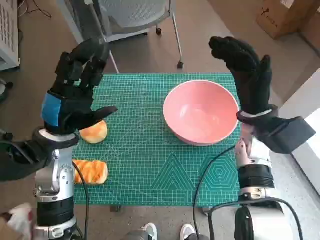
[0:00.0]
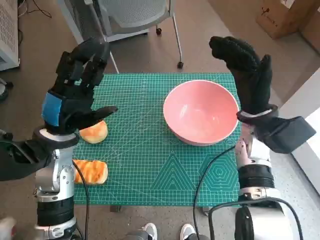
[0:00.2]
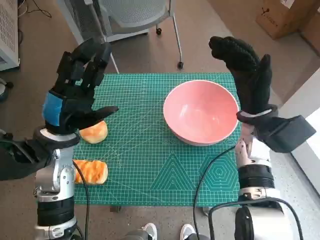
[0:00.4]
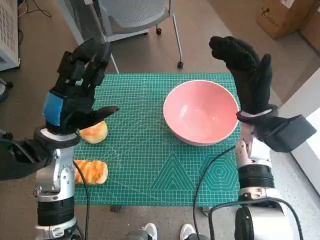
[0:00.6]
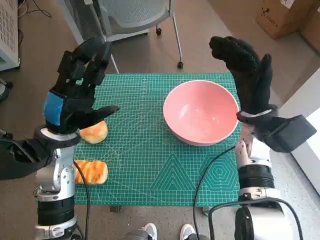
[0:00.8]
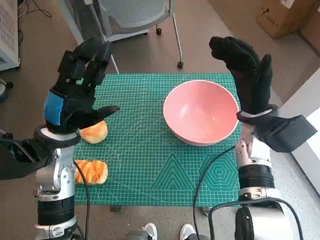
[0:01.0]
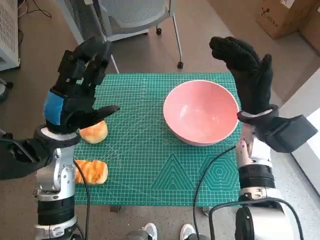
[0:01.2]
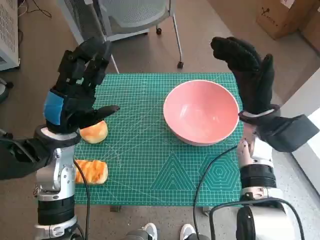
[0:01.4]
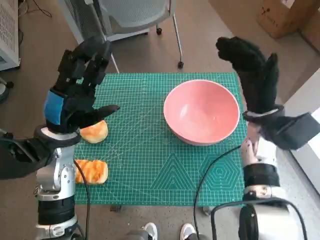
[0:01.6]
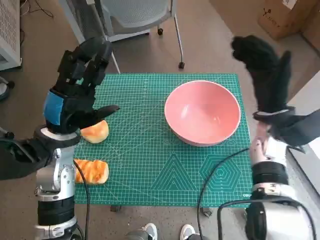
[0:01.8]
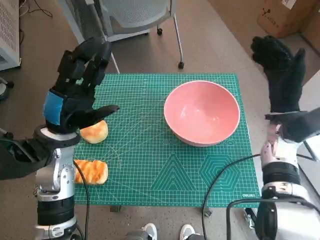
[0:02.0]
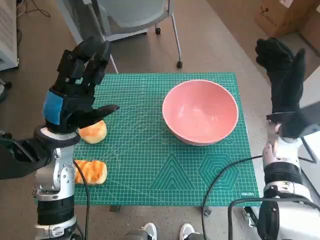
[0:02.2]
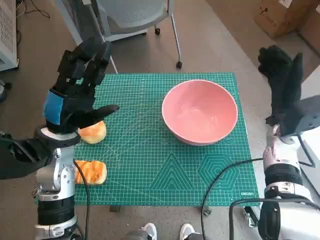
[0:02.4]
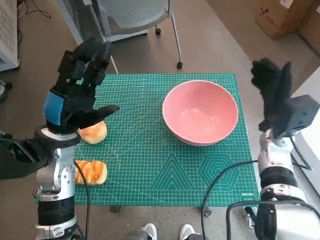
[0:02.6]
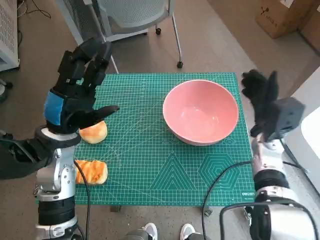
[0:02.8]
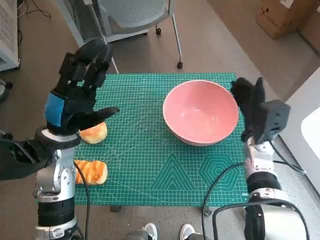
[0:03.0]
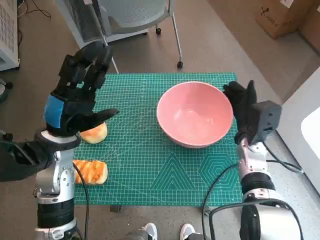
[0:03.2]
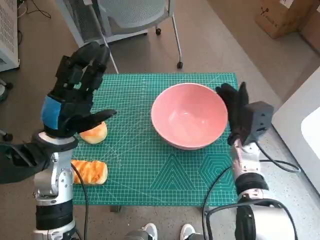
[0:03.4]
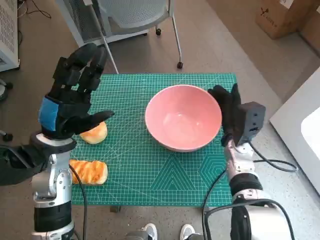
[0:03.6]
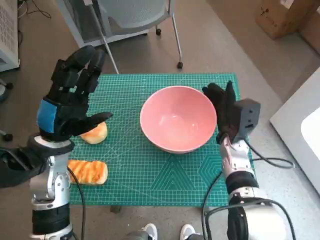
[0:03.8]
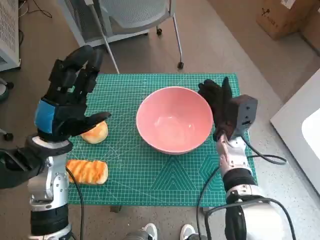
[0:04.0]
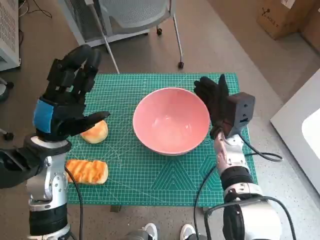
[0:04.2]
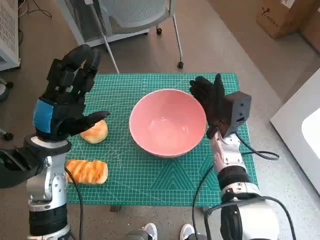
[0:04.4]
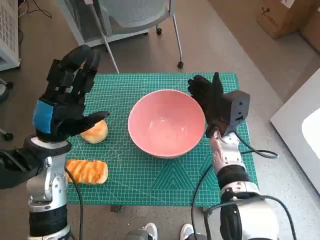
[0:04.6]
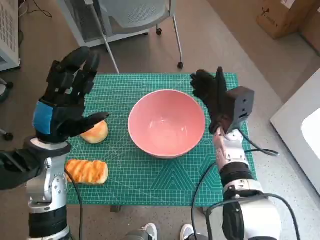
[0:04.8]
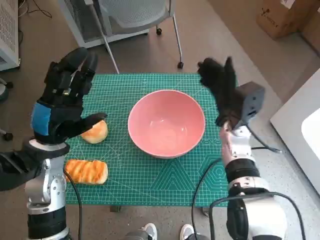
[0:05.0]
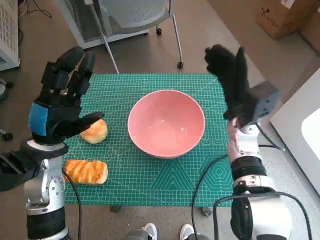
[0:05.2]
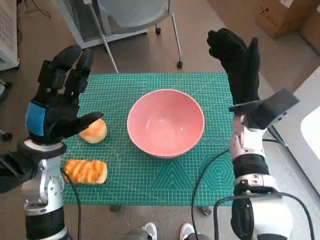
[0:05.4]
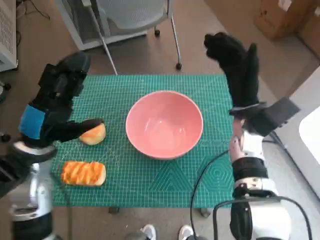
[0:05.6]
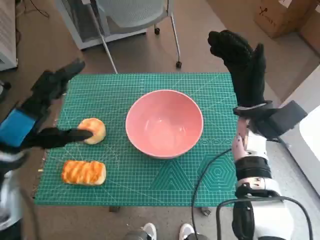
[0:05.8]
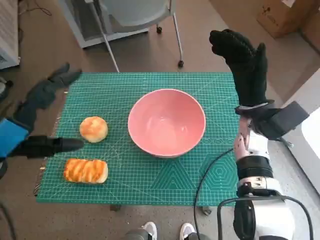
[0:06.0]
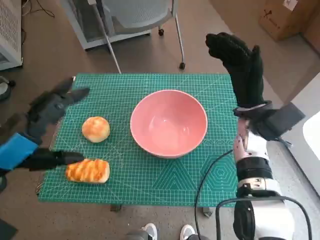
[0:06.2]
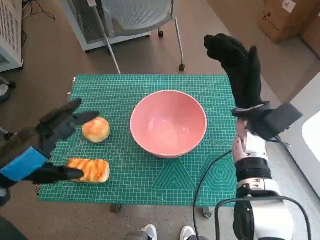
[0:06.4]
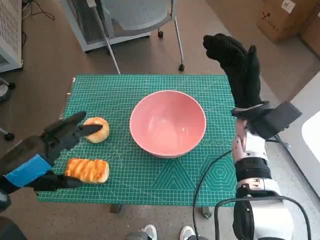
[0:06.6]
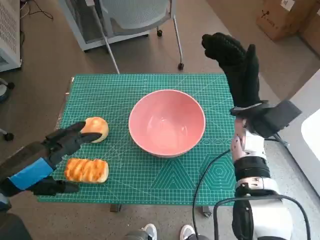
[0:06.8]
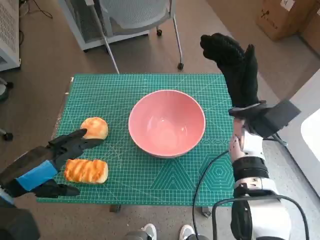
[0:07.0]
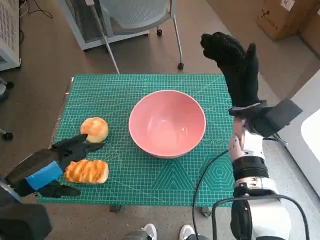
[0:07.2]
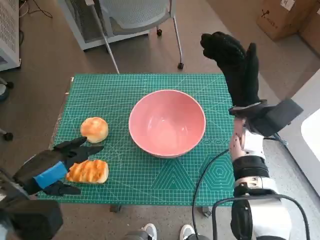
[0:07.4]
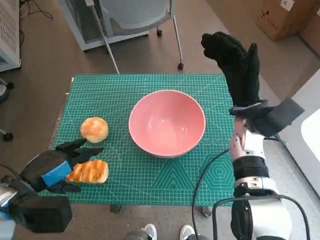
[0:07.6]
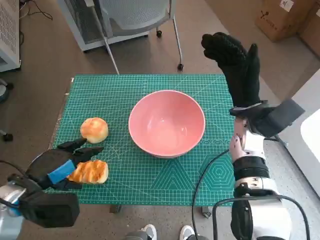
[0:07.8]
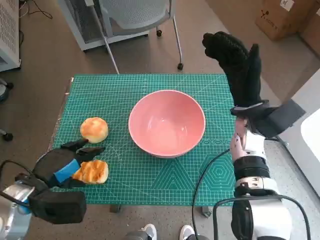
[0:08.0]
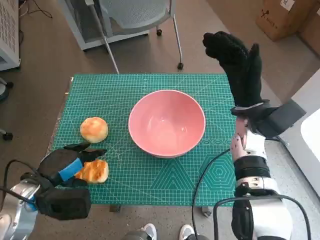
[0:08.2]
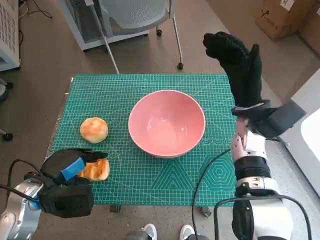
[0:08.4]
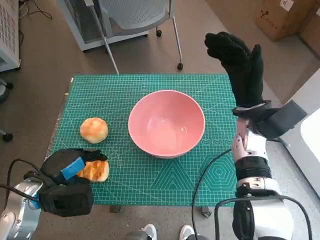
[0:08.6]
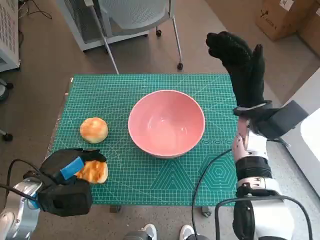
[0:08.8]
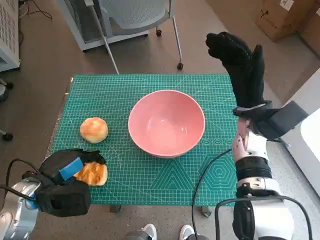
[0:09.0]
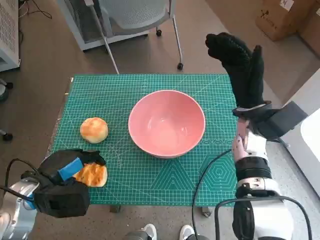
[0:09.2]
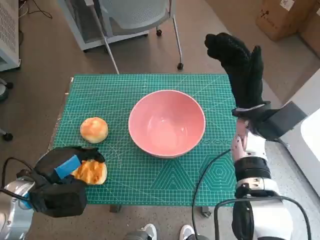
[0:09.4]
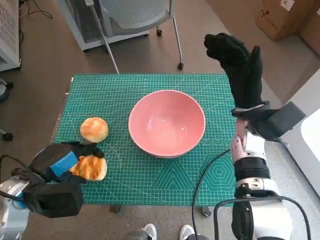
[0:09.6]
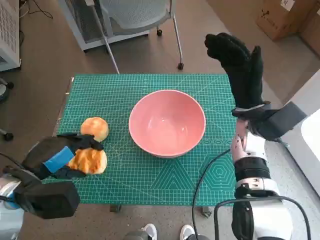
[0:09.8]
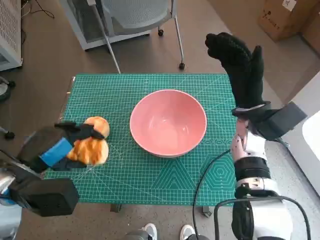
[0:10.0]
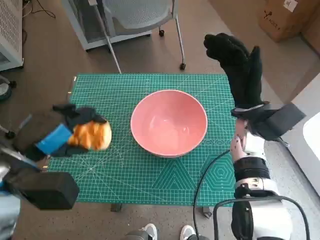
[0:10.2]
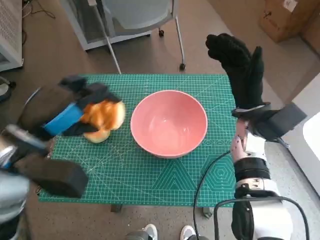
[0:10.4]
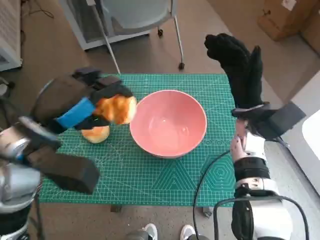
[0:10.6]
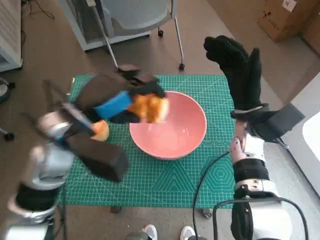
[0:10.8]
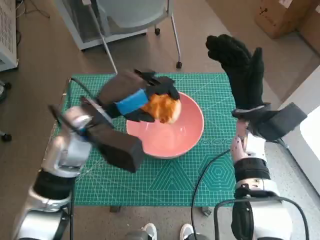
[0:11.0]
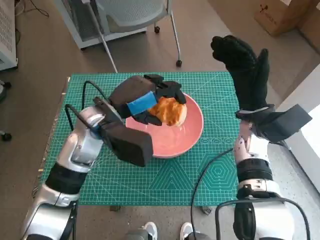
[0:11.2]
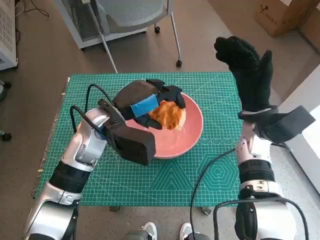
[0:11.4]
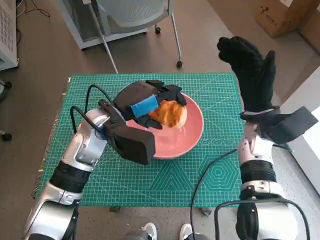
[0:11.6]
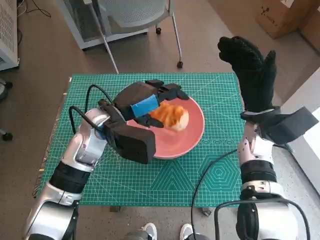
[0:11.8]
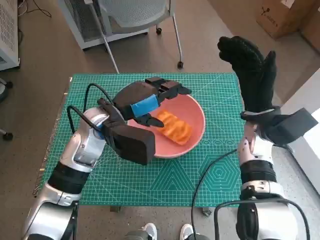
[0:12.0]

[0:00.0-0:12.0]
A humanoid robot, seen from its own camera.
Step, 0:00.0 to 0:04.8: Move the pink bowl to the center of table with right hand.
Step, 0:05.0 to 0:09.0: Grasp the long bread with left hand.
0:01.6 to 0:03.0: The right hand is displaced downward by roughly 5 cm.
0:03.0 to 0:04.4: The right hand travels to the left by about 10 cm.
0:04.4 to 0:06.0: The left hand goes about 10 cm upward and backward. Meanwhile the right hand travels upward by approximately 5 cm.
0:06.0 to 0:07.6: The left hand heads downward, covering roughly 10 cm.
0:07.6 to 0:09.0: The hands make only small movements.
0:09.0 to 0:10.4: The left hand moves upward, some 10 cm.
0:10.4 to 0:12.0: The left hand is displaced to the right and forward by about 15 cm.

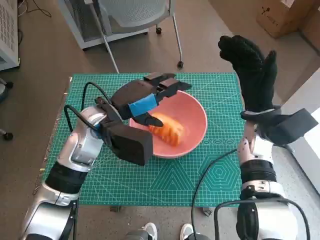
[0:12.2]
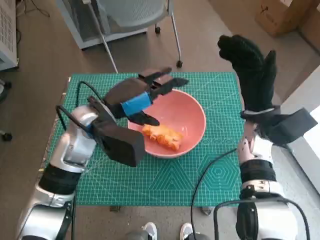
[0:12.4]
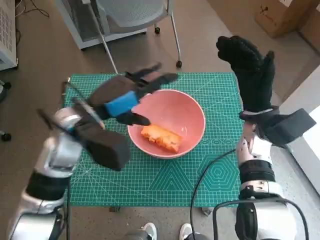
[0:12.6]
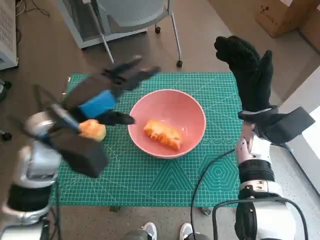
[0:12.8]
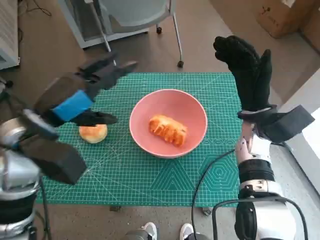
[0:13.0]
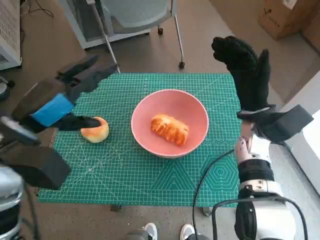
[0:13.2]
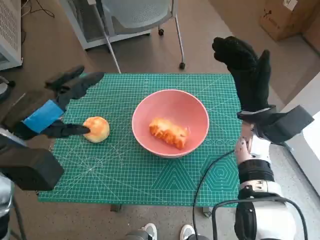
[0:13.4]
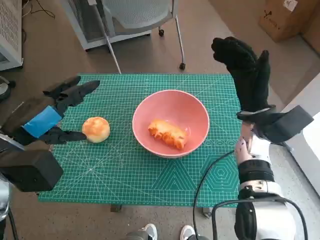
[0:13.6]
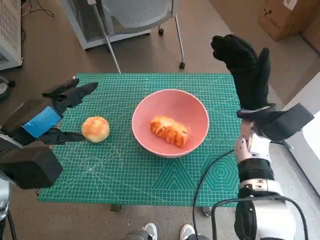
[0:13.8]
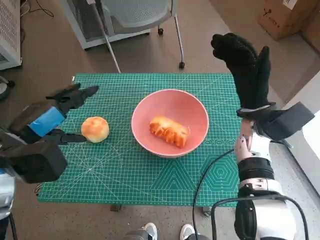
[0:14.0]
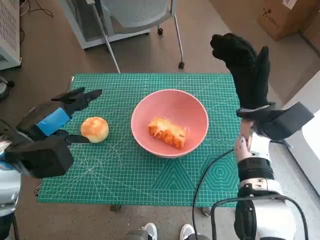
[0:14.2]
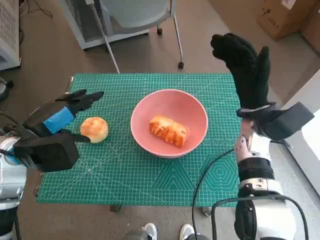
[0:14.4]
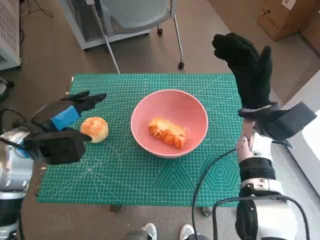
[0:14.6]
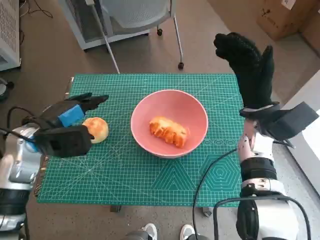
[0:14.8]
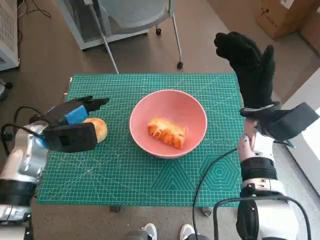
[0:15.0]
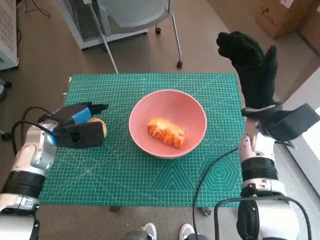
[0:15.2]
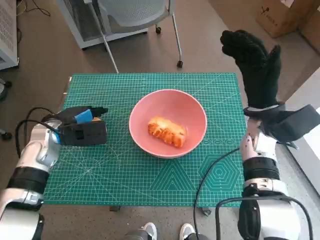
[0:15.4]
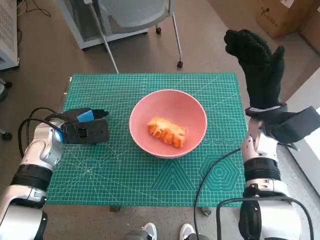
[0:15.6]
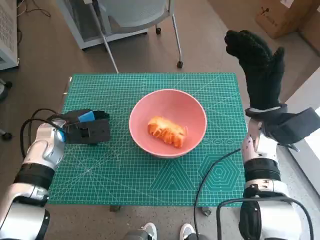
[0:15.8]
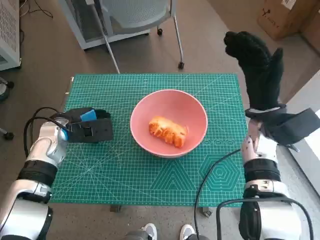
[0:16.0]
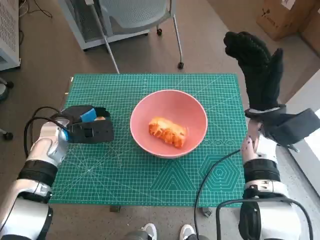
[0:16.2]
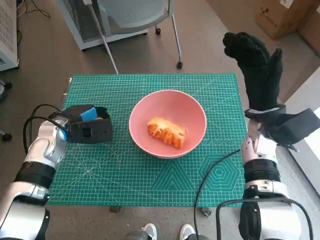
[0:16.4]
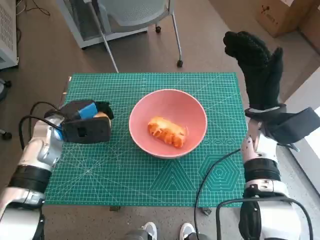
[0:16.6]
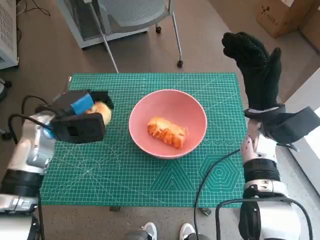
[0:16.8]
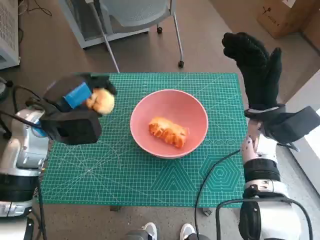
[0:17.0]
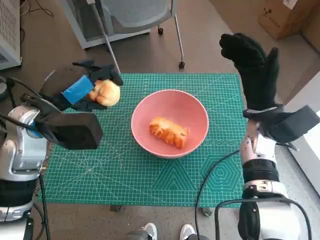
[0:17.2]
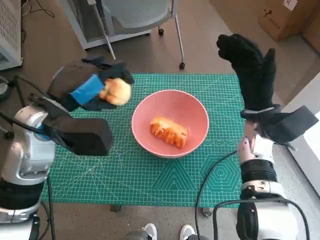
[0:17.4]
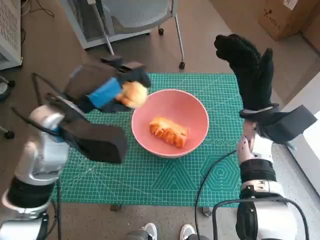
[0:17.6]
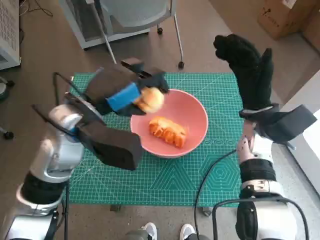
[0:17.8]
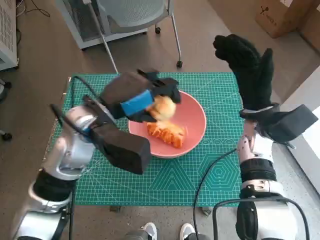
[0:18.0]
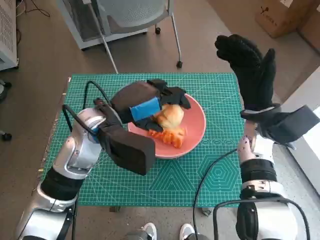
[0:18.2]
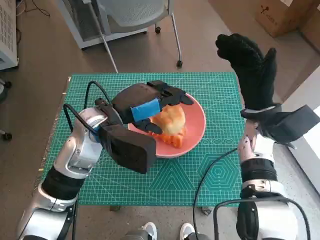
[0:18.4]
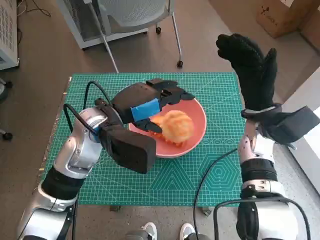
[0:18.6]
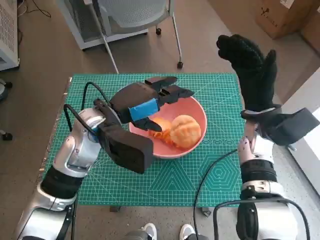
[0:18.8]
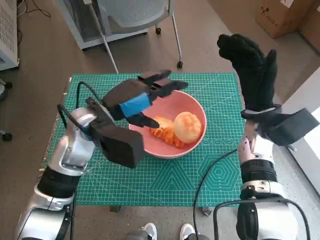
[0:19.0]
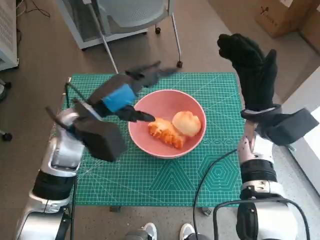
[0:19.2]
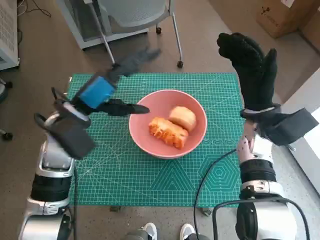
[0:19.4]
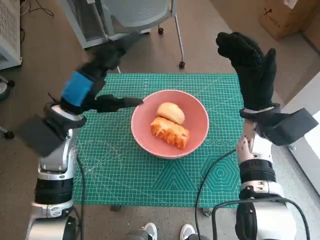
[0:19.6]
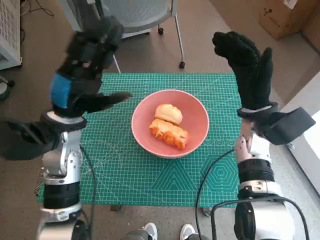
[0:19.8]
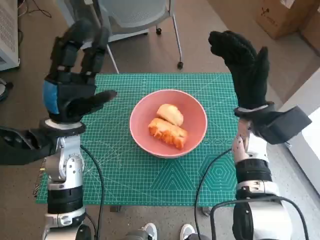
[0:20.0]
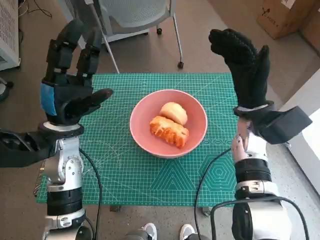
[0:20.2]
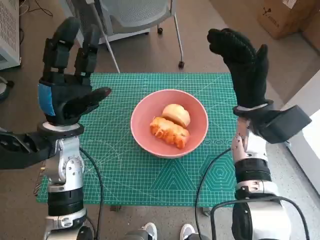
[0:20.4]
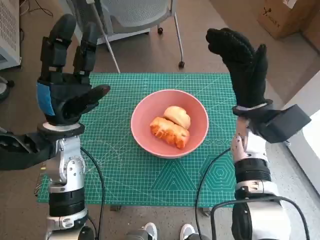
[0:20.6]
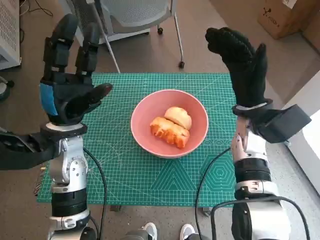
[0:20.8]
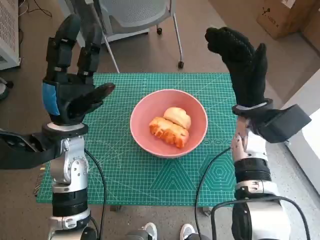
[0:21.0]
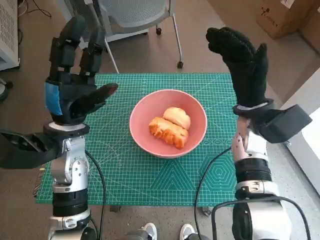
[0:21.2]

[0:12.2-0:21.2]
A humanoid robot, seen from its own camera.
Step, 0:12.6 to 0:16.0: Grasp the round bread with left hand.
Step, 0:16.2 to 0:18.8: Place the round bread in pink bowl with left hand.
0:12.2 to 0:13.8: The left hand goes roughly 15 cm to the left and backward.
0:13.8 to 0:15.2: The left hand travels forward and downward by approximately 10 cm.
0:15.2 to 0:16.6: The hands stay close to where they were, moving slightly.
0:16.6 to 0:18.2: The left hand shifts about 15 cm to the right and upward.
0:18.2 to 0:19.8: The left hand is displaced to the left by some 5 cm.

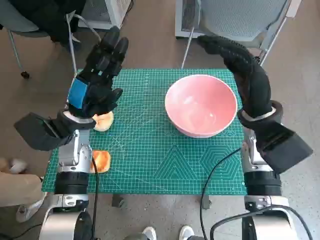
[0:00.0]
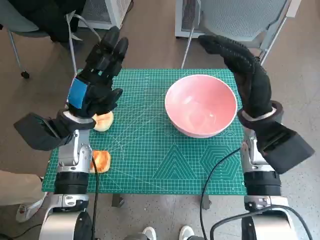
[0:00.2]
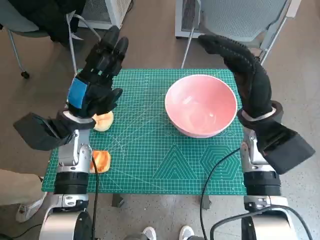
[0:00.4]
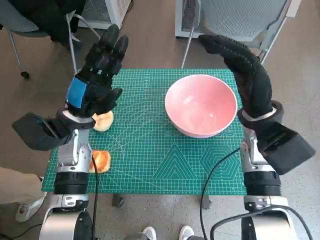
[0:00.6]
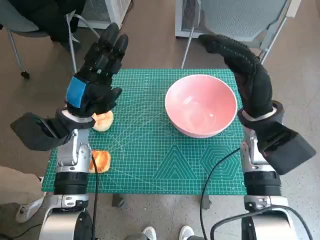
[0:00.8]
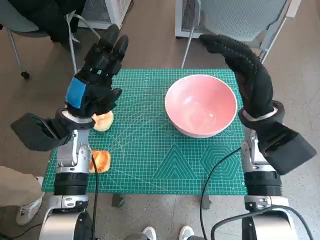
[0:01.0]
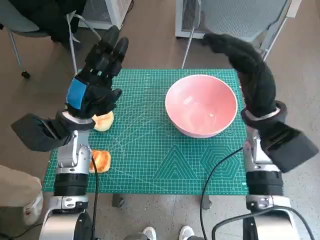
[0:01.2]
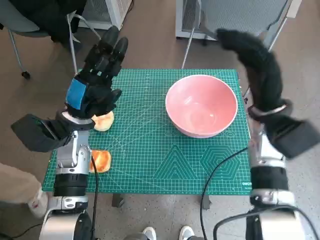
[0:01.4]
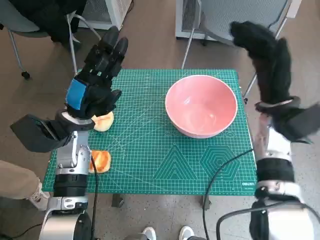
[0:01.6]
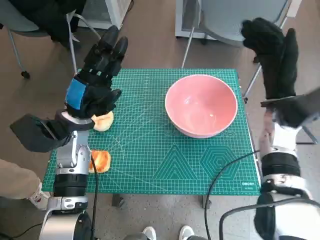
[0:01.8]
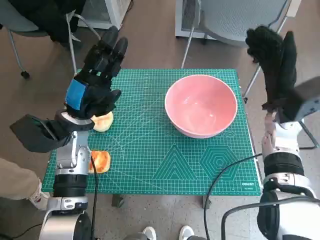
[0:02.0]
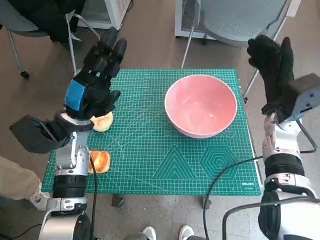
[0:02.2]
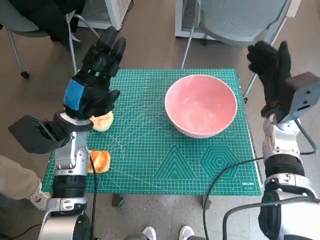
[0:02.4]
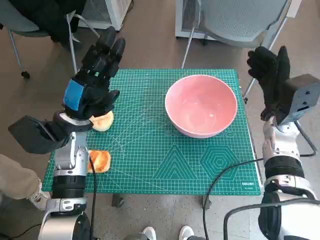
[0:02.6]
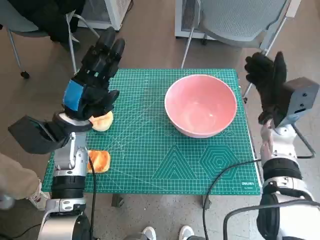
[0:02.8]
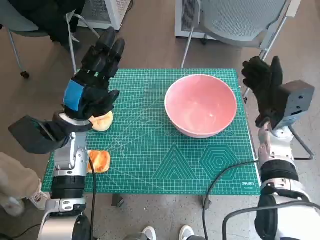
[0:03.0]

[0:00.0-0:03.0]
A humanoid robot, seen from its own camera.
0:01.6 to 0:03.0: The right hand goes roughly 5 cm downward.
